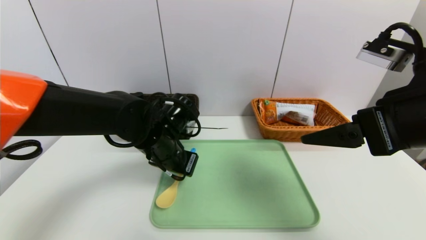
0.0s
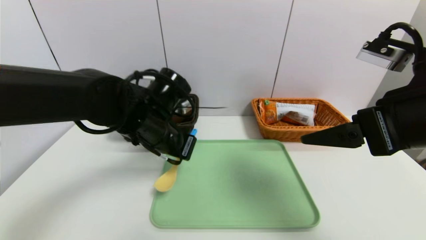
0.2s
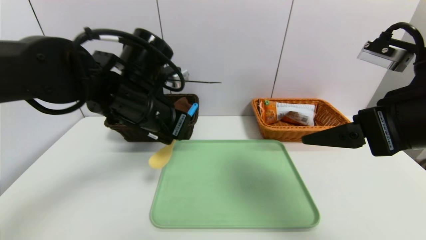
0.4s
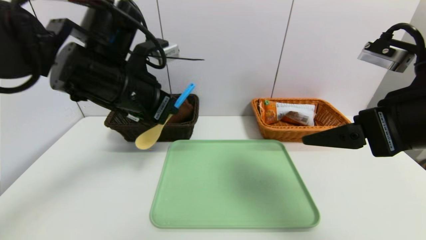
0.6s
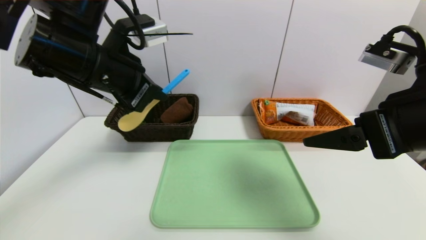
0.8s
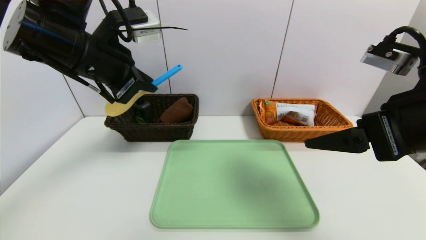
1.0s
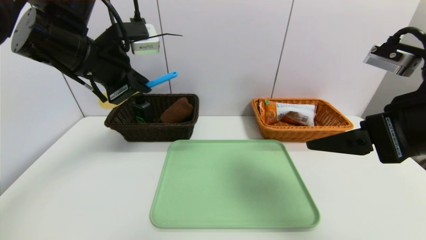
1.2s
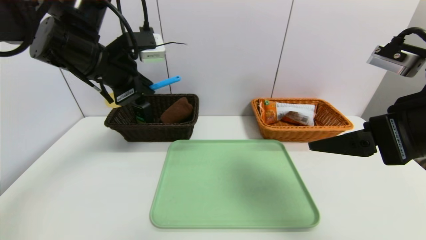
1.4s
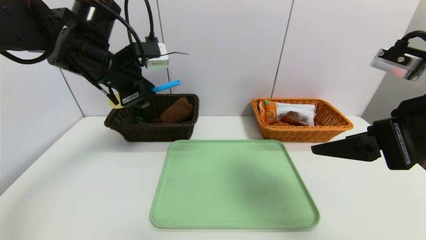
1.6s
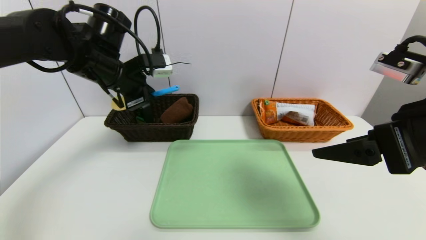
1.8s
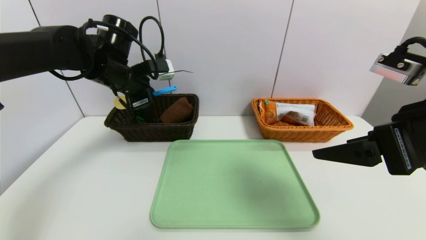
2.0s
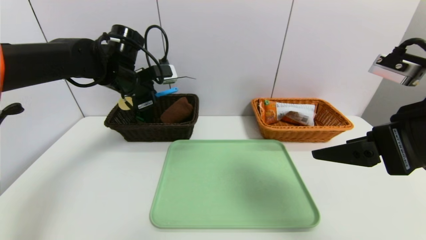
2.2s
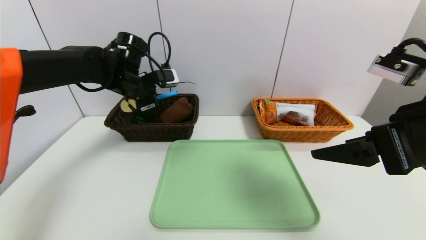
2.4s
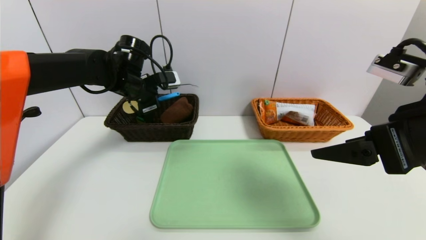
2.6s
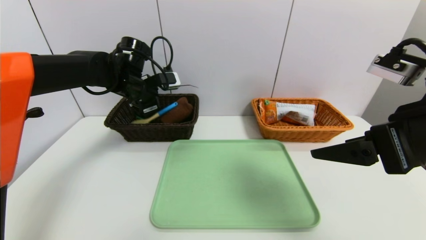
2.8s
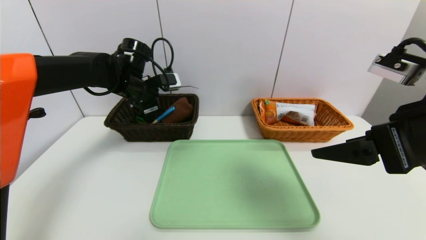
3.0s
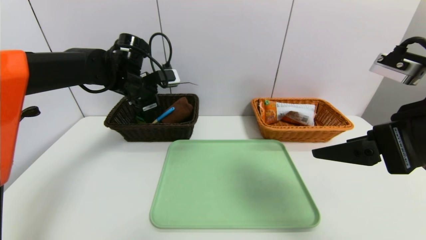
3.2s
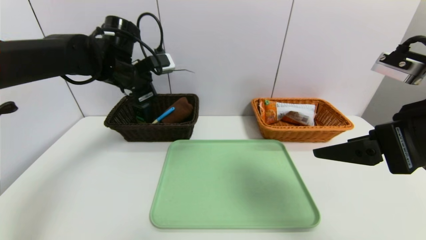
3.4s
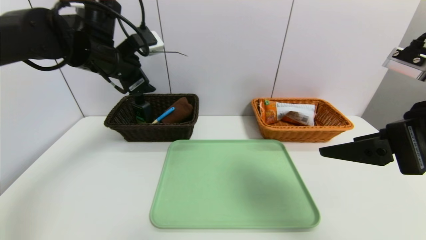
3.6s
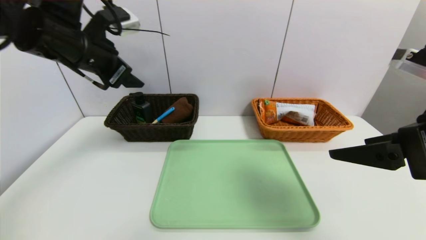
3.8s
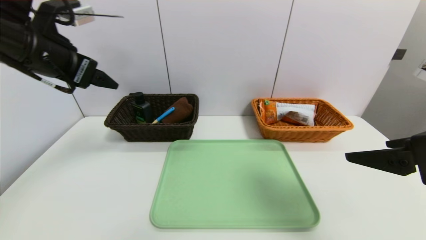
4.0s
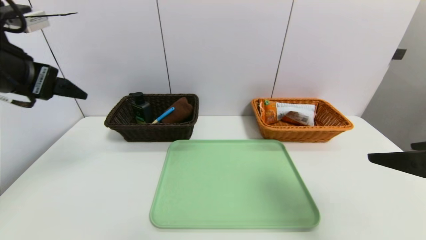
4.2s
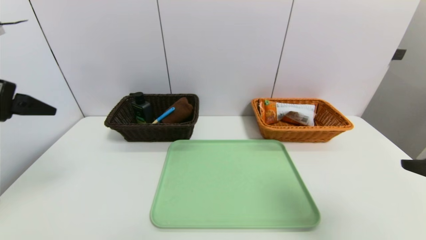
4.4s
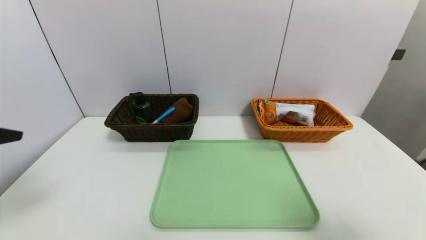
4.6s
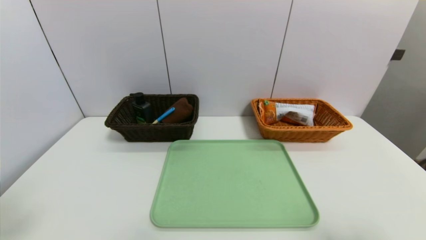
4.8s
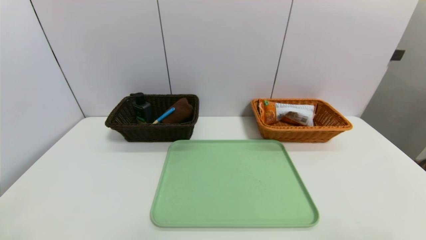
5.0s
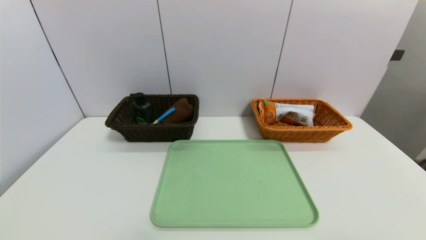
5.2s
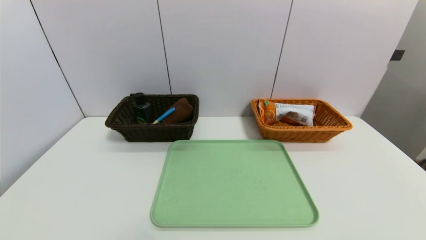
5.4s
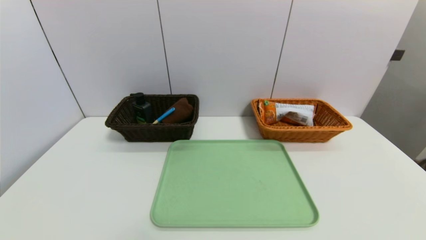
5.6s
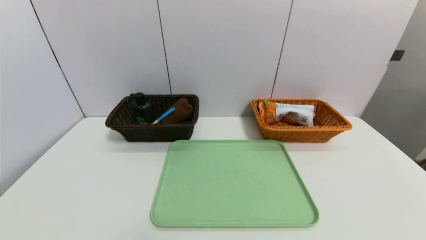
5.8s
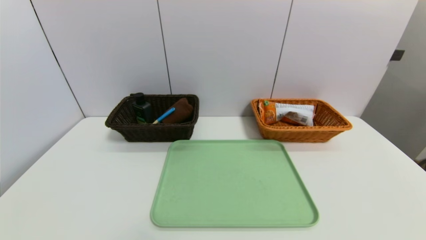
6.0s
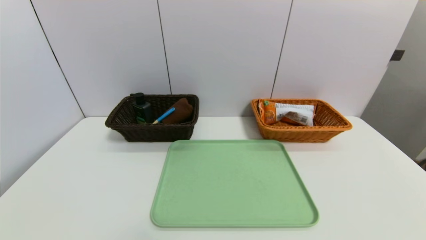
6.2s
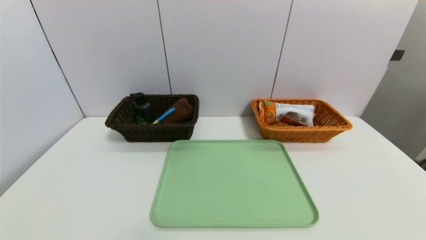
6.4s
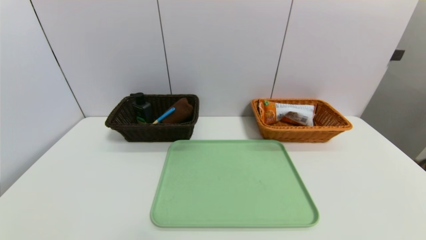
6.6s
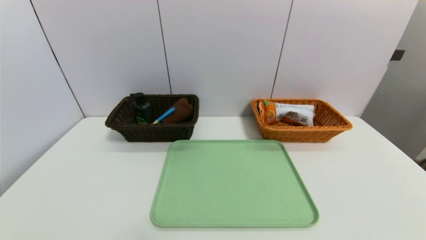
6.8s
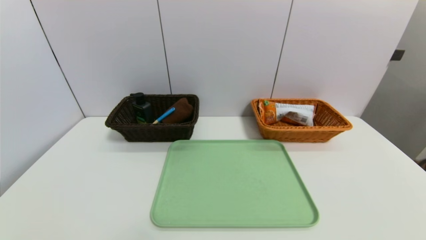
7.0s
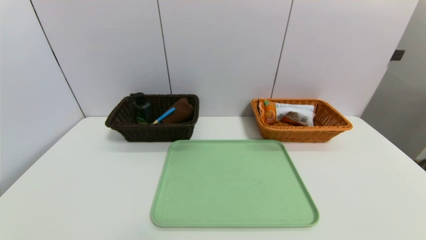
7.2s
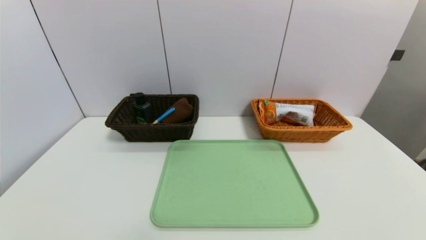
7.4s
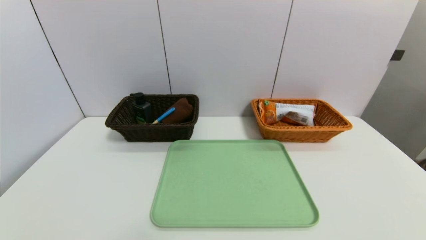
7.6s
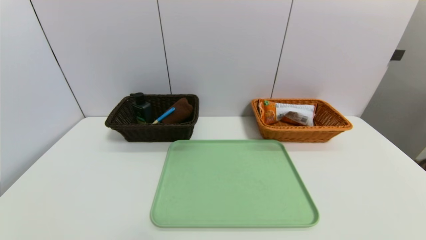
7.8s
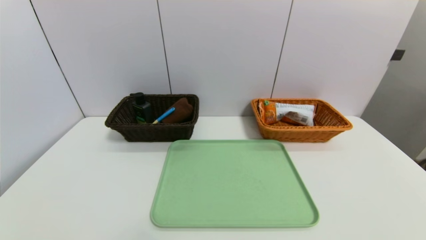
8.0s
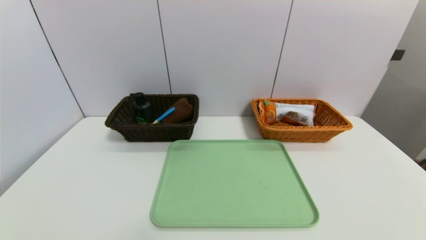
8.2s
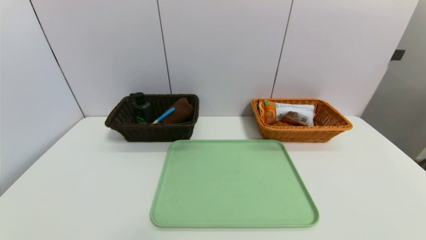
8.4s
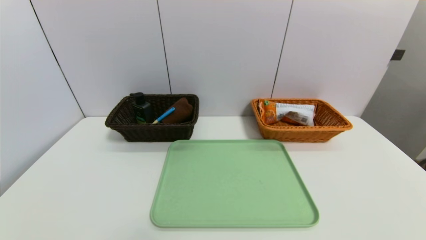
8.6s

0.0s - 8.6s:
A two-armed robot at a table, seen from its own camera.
Task of the whole recording: place the food in the right basket with the right gripper, and place the non food items in the left basket with the left gripper.
Step, 0.0s - 3.2s: Grasp the back scratcher and put it in the left basket.
0.0s - 1.4s: The left gripper travels upward and to the left by roughly 20 cm.
1.4s - 2.8s: The left gripper moves forward and downward, about 15 cm.
2.8s - 4.4s: The right gripper shifts some 10 cm backward and to the right. The left gripper heads backward, to the left and upward, covering roughly 30 cm, and opens up.
4.4s - 5.8s: The left gripper heads backward and downward, covering about 25 cm. Meanwhile the right gripper heads backward, covering approximately 15 cm.

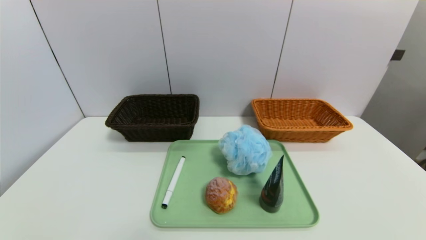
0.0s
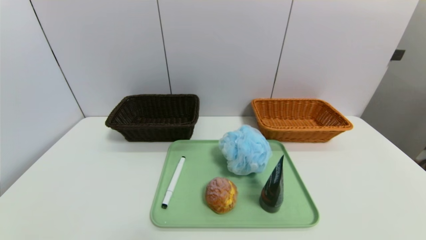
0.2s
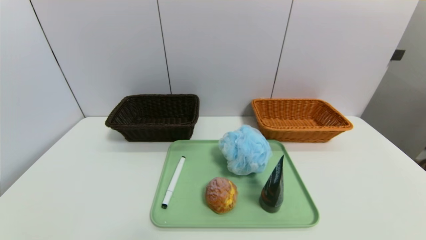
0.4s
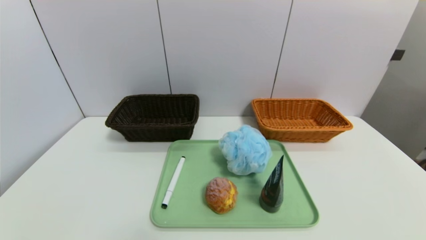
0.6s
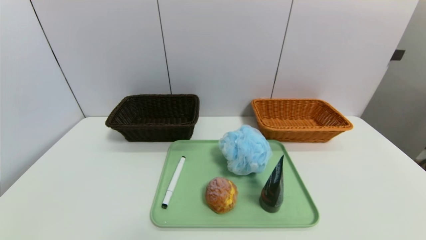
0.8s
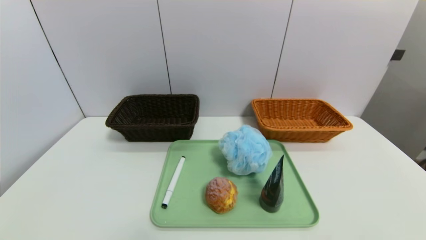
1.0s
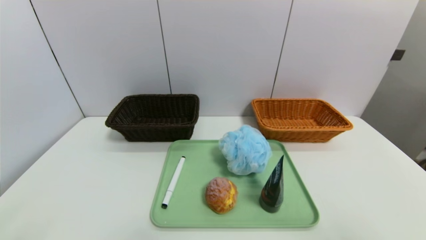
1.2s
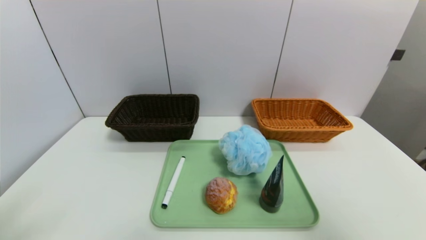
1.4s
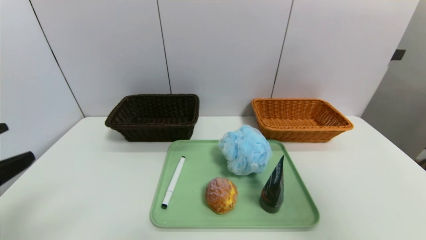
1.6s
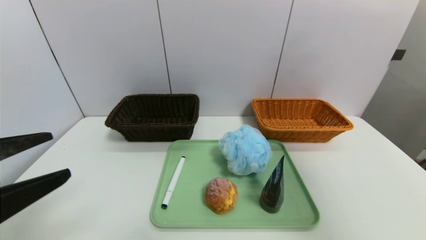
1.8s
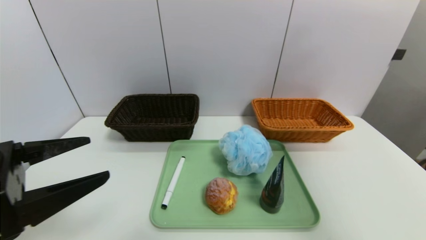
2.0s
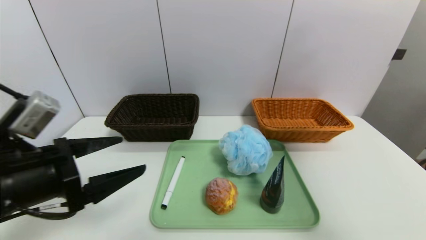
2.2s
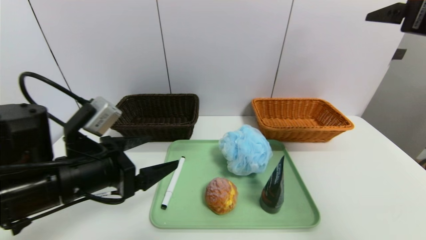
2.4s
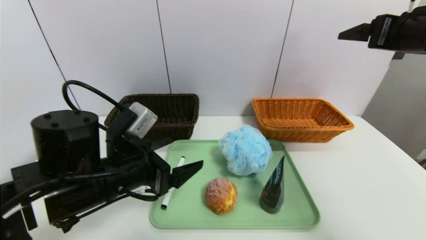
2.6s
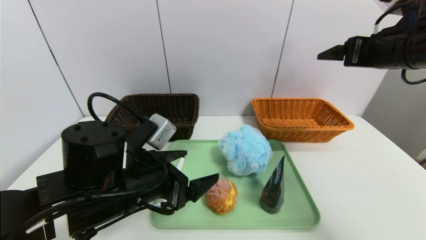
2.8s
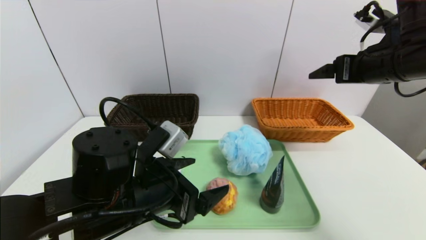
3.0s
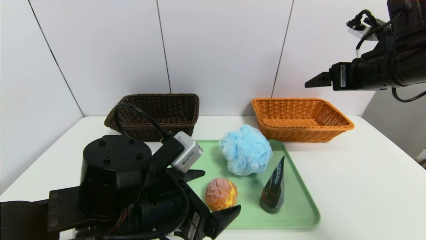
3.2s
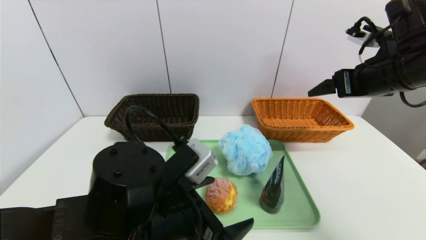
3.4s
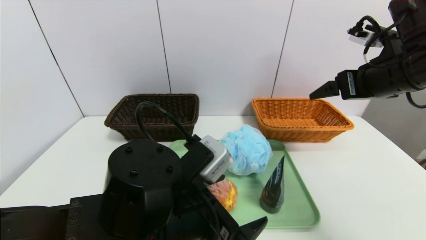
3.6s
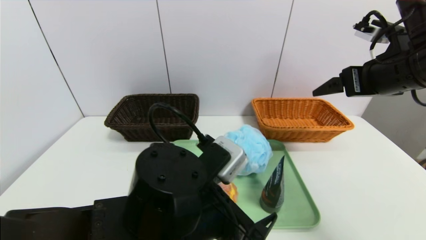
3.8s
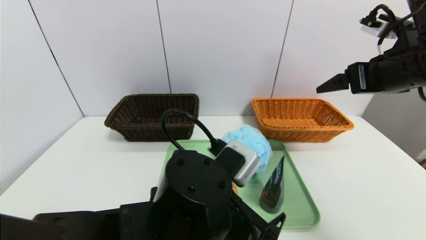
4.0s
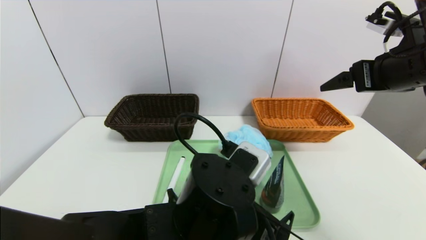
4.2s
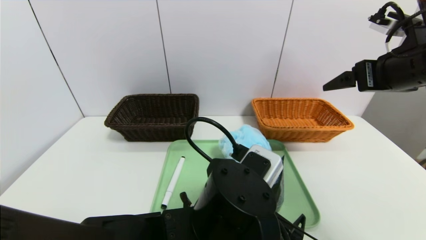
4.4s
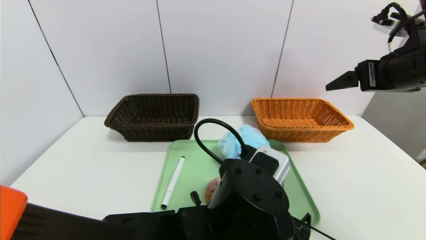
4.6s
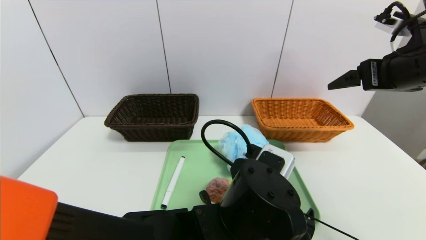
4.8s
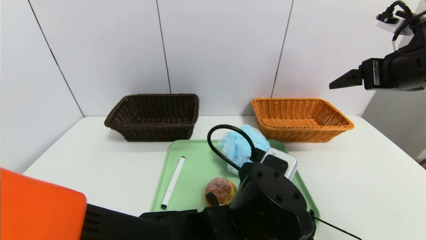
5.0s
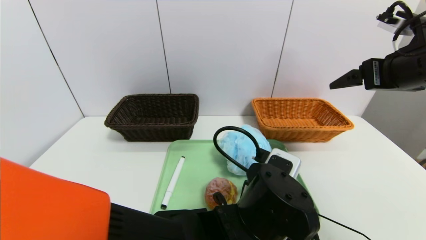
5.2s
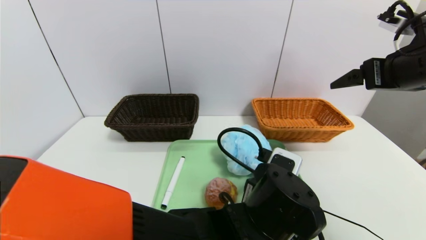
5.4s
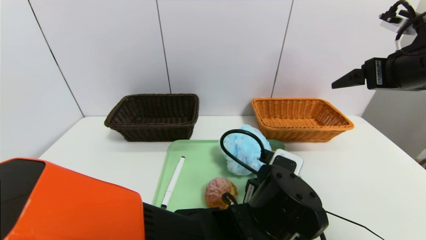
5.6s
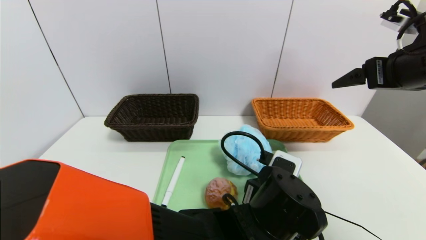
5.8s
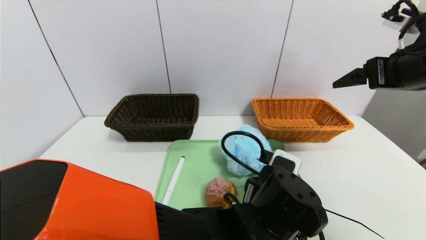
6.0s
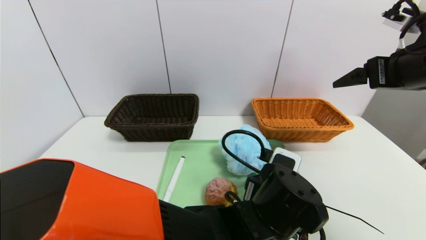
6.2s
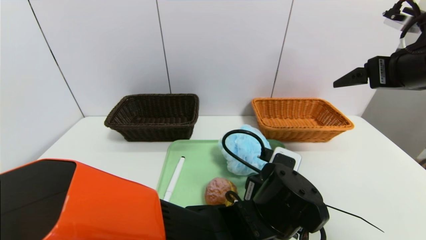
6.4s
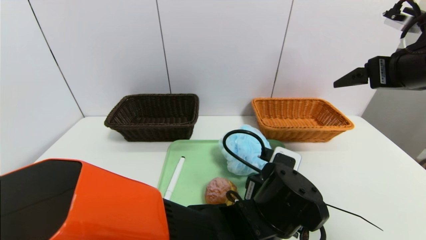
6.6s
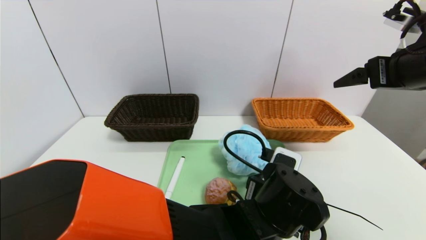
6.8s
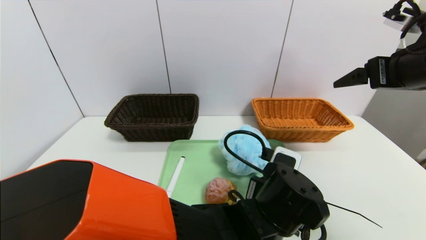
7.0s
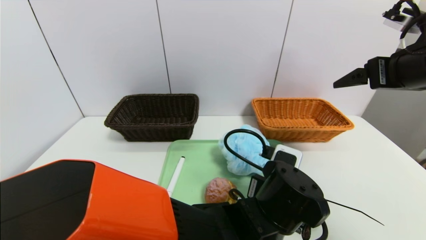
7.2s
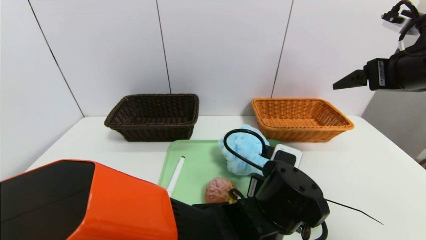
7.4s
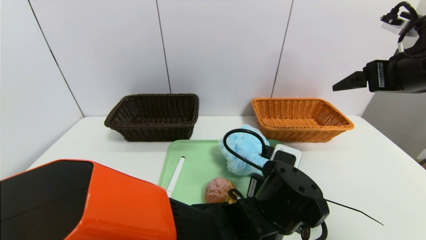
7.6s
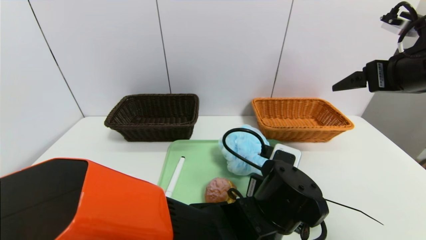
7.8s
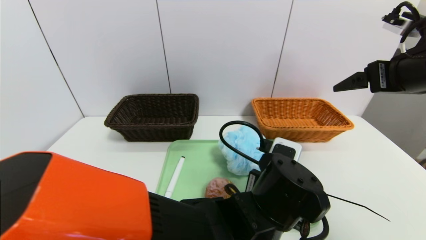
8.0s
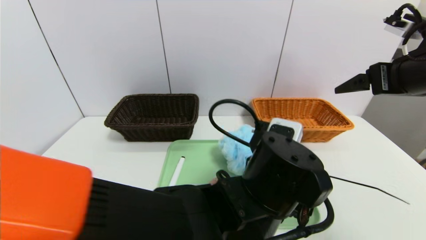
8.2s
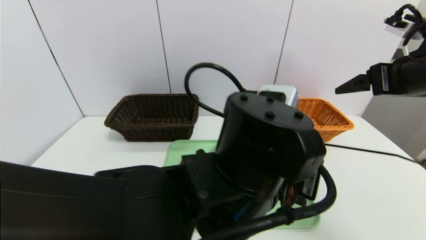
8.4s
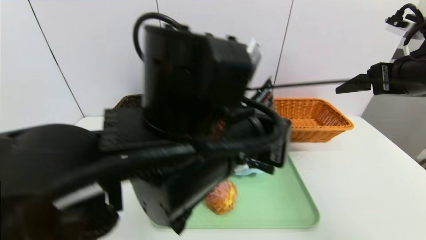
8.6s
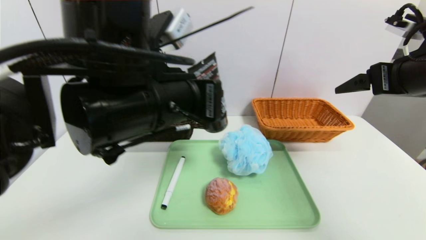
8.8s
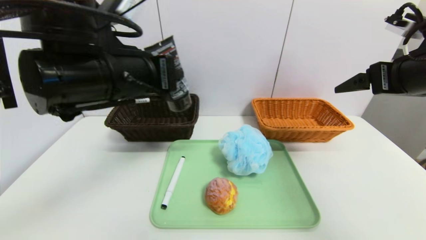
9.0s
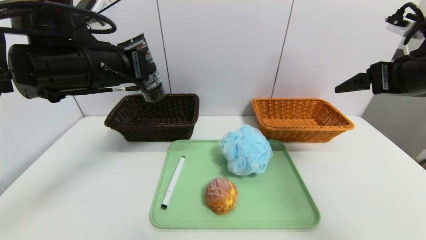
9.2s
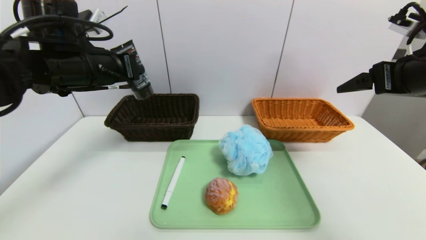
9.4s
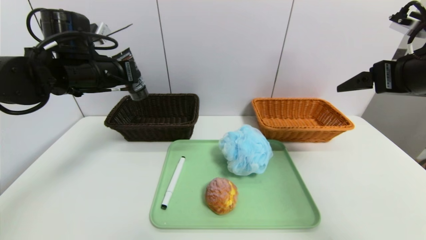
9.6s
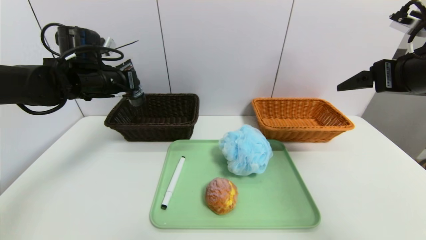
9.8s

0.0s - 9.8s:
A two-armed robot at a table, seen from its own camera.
Task of the whole recording: place the food in the right basket with the right gripper, and place the non food items in the left basket with the left gripper.
0.0s - 1.4s: The right gripper is displaced upward by about 30 cm.
1.4s - 2.8s: The right gripper moves forward, roughly 25 cm, while the left gripper is displaced to the right, forward and downward by roughly 25 cm.
2.8s - 4.2s: The left gripper is displaced to the right by approximately 10 cm.
4.2s - 5.6s: The left gripper heads to the right, covering about 10 cm.
5.6s - 7.0s: The grippers make only small movements.
7.0s - 8.4s: The left gripper goes about 10 cm upward, and closes its fingers.
8.4s - 9.8s: The left gripper heads to the left and forward, covering some 35 cm.
